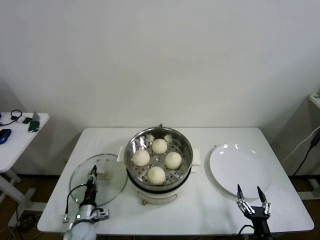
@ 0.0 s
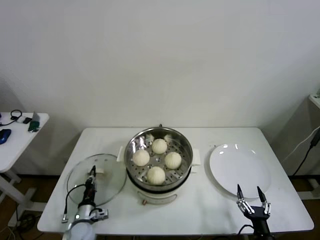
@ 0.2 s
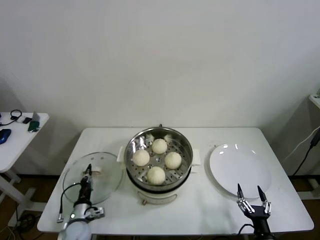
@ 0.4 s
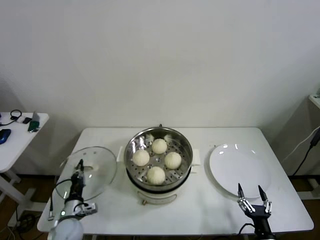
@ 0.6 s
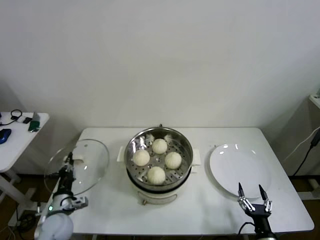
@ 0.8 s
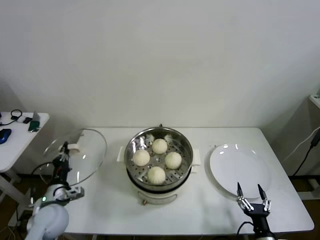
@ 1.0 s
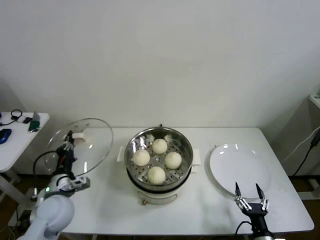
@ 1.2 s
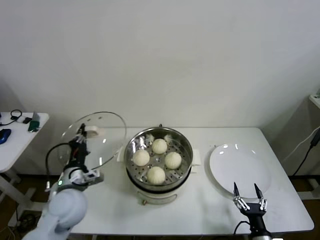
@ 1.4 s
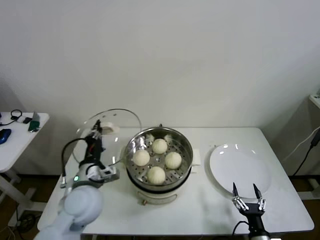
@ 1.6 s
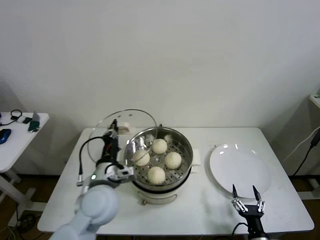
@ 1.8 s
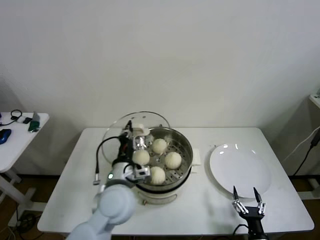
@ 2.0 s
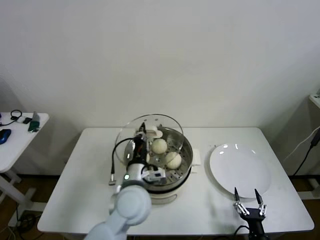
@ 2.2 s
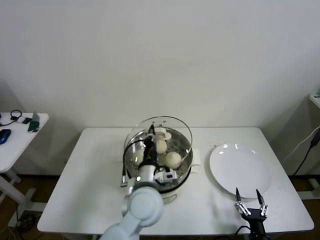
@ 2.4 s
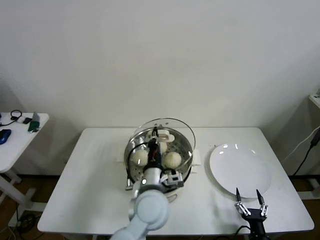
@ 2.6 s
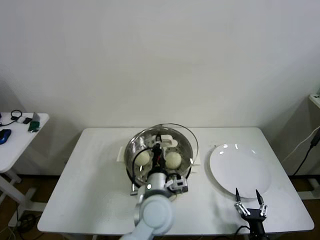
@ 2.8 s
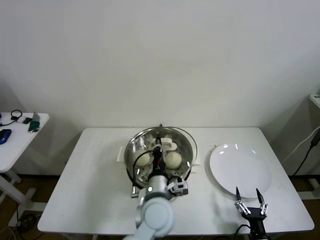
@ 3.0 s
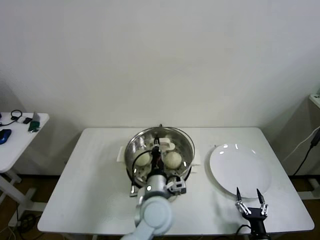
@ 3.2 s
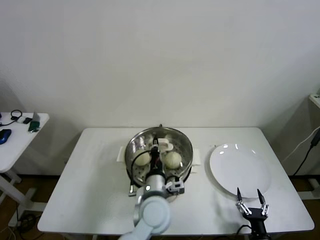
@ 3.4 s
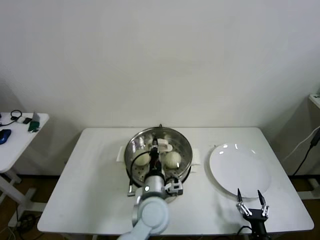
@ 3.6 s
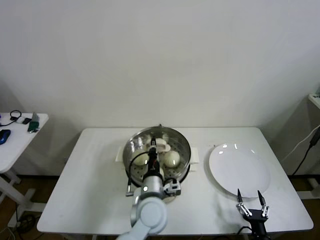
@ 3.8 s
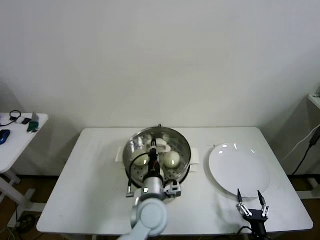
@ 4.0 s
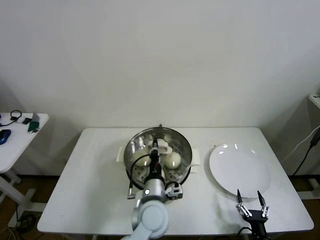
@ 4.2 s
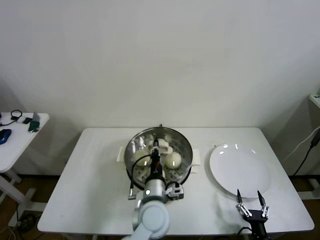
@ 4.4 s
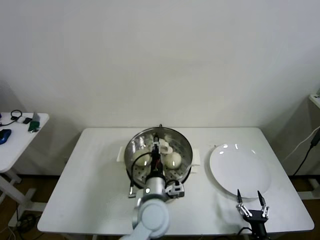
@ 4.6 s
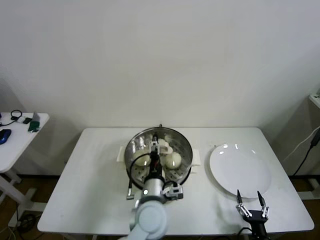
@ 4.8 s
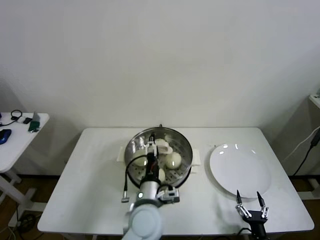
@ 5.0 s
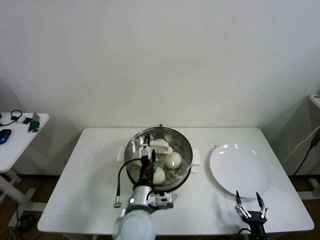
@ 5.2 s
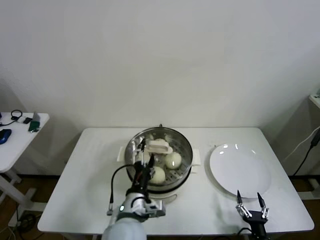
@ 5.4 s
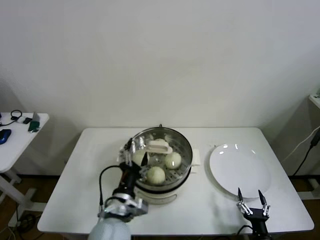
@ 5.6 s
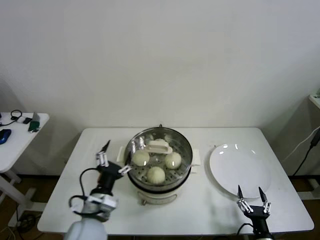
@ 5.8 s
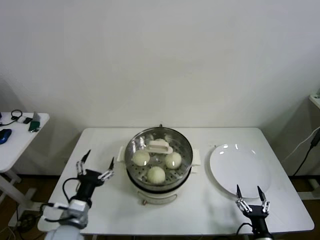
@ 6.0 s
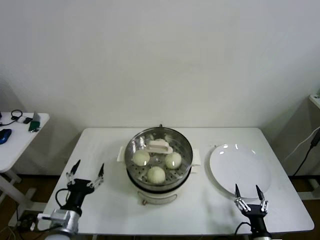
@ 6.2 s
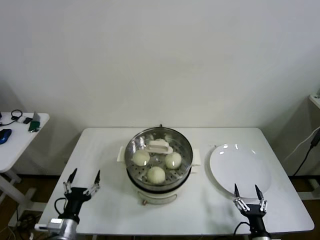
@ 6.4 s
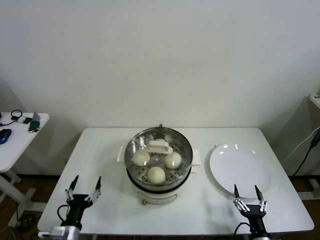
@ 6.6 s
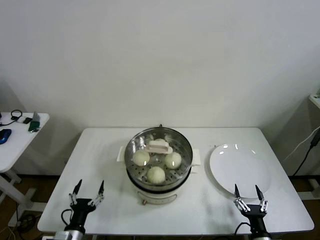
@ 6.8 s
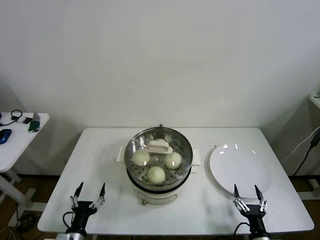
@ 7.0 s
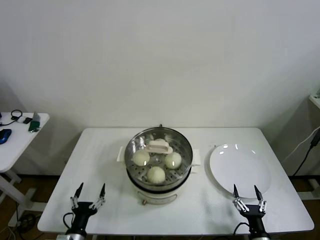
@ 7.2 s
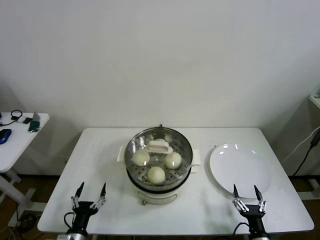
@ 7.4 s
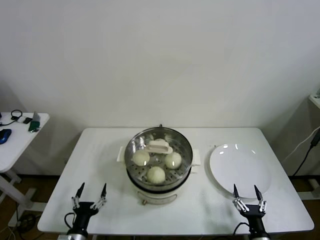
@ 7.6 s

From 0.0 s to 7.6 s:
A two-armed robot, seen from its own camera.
Step, from 0.2 s to 4.4 s: Place the pot lid on the steamer with left gripper.
From 0.0 s to 1.6 s: The left gripper shifts approximately 25 cm upward.
From 1.6 s to 3.0 s: The left gripper is displaced to the right by roughly 20 cm.
From 3.0 s to 4.6 s: There are only small adjustments of the grippers.
From 4.6 s to 6.0 s: The left gripper heads to the left, covering approximately 20 cm, and opens up.
From 6.0 s to 7.6 s: The left gripper moves downward and backward, about 15 cm.
